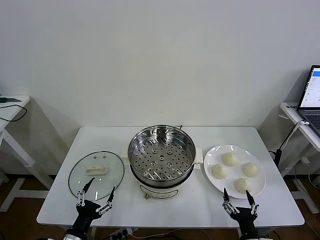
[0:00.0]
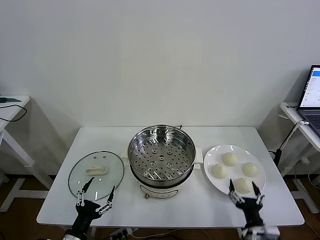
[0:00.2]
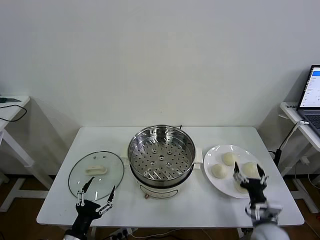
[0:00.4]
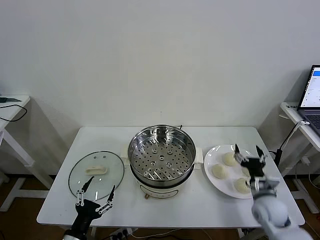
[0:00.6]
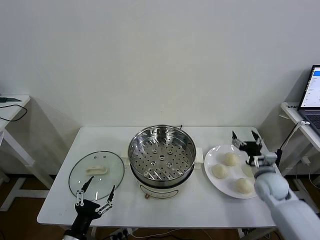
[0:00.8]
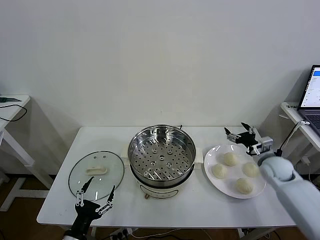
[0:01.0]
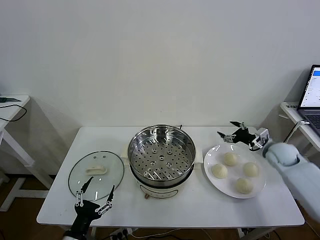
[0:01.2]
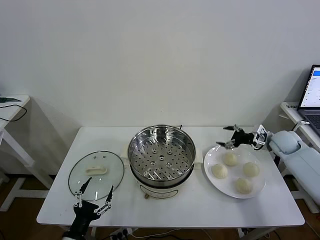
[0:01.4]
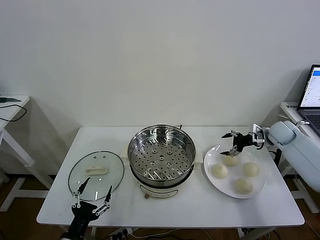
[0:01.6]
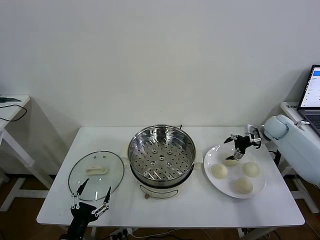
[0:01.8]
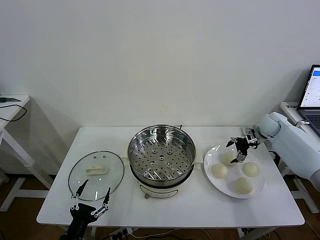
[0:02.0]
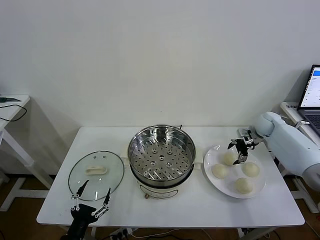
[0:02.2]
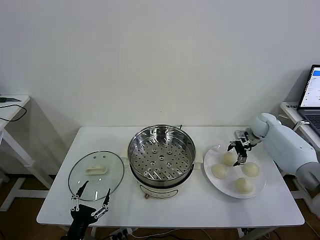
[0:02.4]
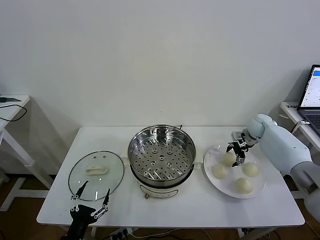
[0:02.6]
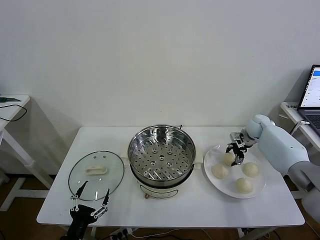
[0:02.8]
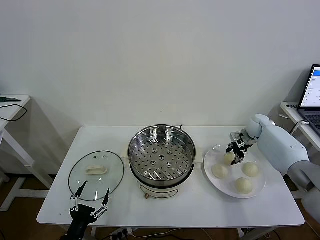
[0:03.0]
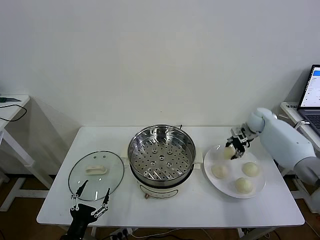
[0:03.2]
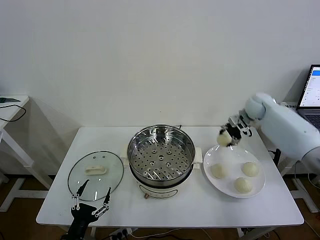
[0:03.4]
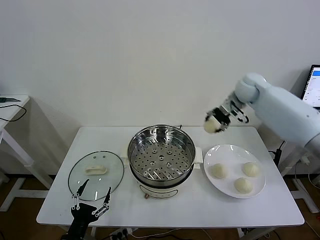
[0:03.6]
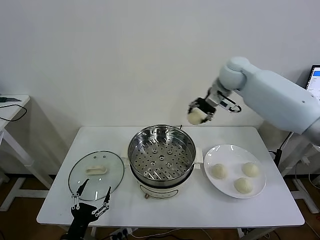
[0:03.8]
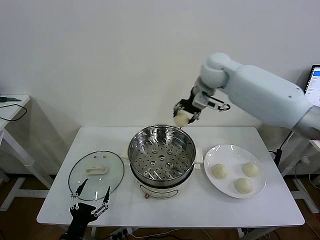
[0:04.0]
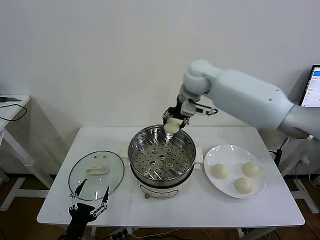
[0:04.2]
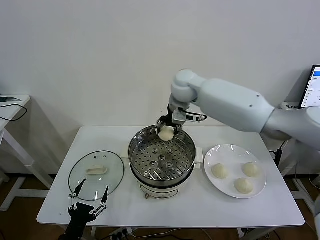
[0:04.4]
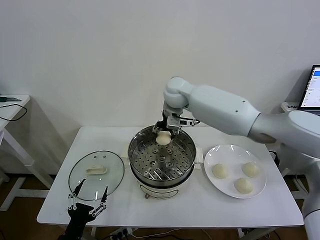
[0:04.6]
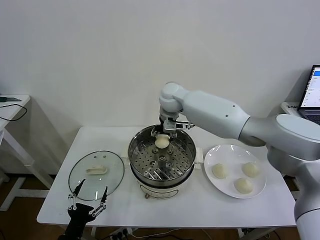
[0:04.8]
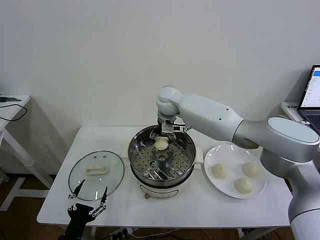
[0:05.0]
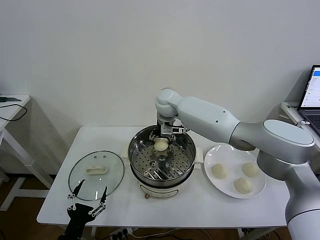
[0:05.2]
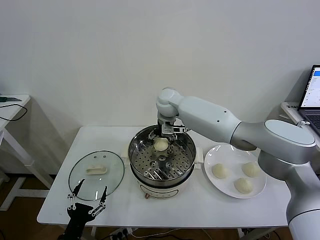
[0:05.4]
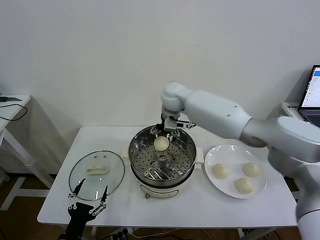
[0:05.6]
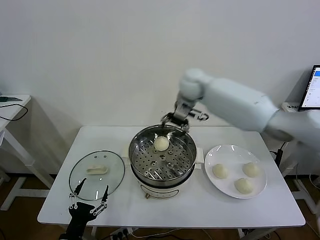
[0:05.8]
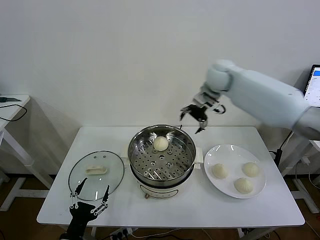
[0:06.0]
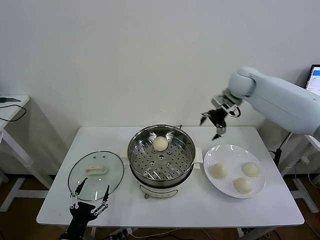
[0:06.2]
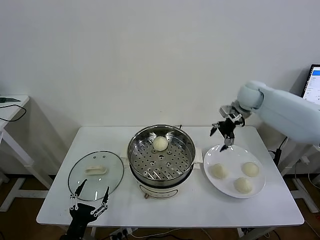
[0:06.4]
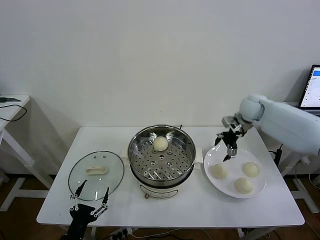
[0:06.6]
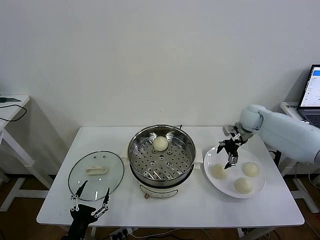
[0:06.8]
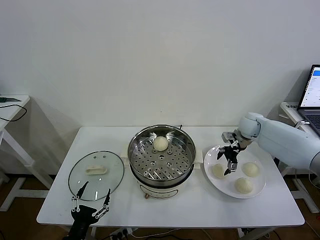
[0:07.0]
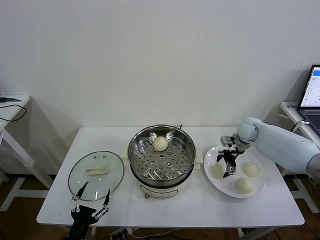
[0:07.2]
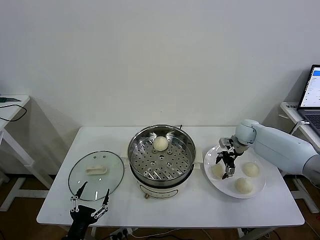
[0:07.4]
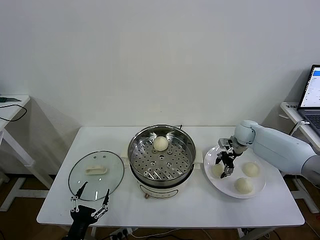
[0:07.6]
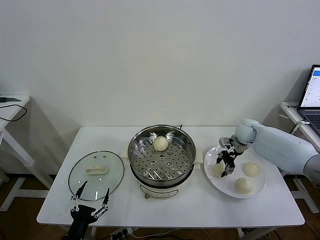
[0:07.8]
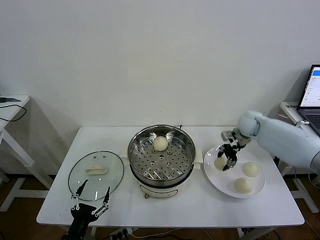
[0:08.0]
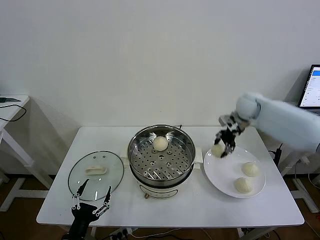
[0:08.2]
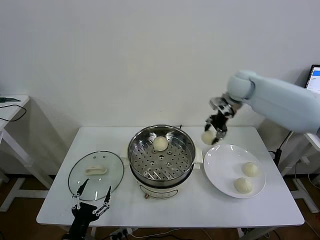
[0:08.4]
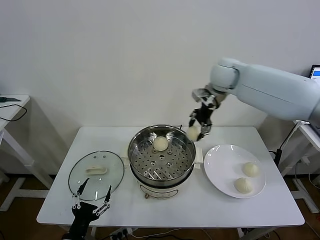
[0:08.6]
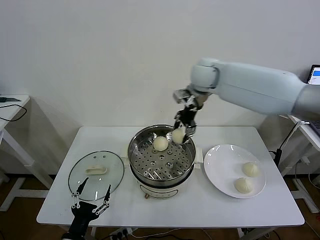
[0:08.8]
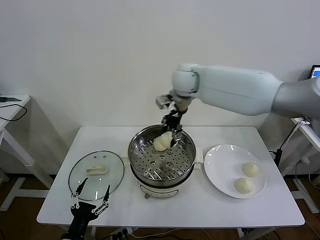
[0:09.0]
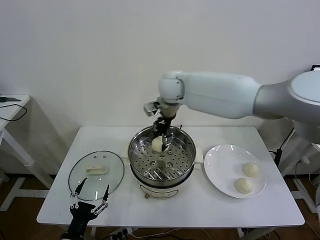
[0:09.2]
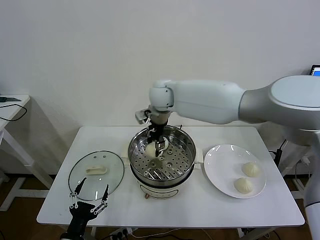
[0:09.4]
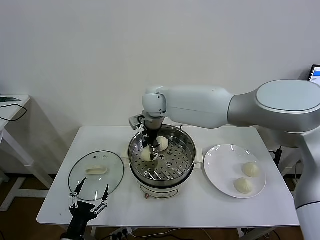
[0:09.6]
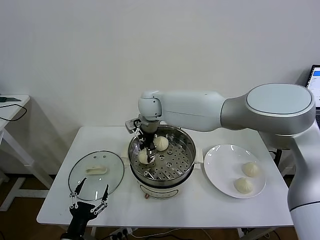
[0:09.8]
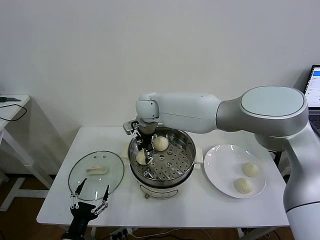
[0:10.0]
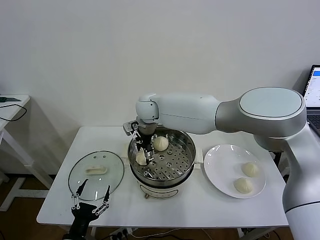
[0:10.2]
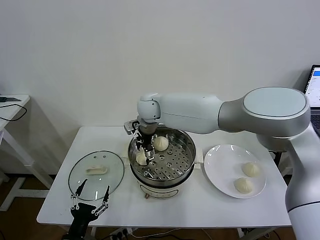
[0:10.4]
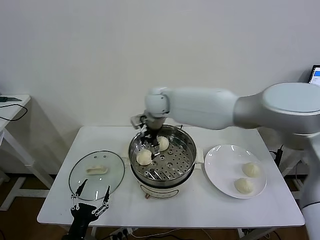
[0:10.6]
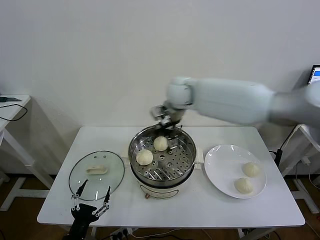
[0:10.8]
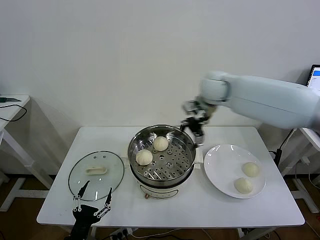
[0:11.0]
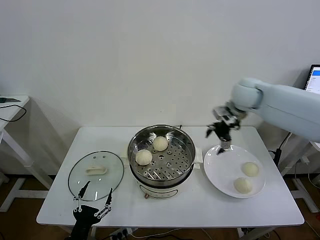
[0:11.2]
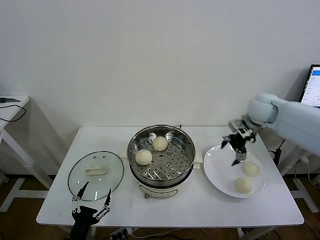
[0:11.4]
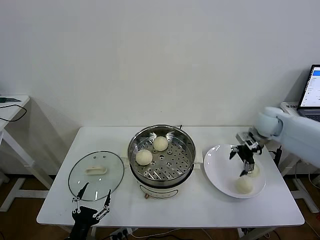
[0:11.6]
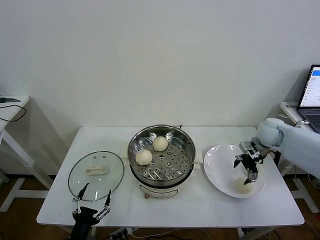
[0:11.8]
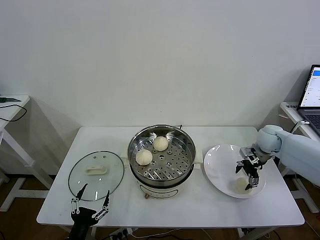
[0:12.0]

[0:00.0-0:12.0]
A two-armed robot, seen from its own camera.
Task of the whole recording: take steamed baozi put them in steamer then cover it.
Step, 0:00.0 to 0:02.8: Grasp the baozi in the plate with right gripper.
Step, 0:03.2 to 0:05.4: Place the baozi on the steamer with right gripper.
Step, 0:05.6 to 0:07.6: Grasp the baozi in the plate with right gripper.
Step, 0:07.8 to 0:10.2: Place the baozi on the steamer with right gripper.
0:01.6 to 0:03.0: The right gripper heads forward, covering approximately 5 cm, and closes its fingers.
0:03.0 to 0:04.4: The right gripper goes about 40 cm to the left and upward.
0:04.4 to 0:06.0: The right gripper is displaced to the right by some 15 cm, and opens up.
0:06.0 to 0:07.6: The right gripper is displaced downward and to the right by approximately 25 cm, and closes up.
0:07.6 to 0:09.0: The right gripper moves to the left and upward, approximately 35 cm.
0:09.0 to 0:10.4: The right gripper is displaced to the left and downward by approximately 10 cm, and opens its fingers.
0:10.4 to 0:12.0: The right gripper is displaced to the right by about 40 cm.

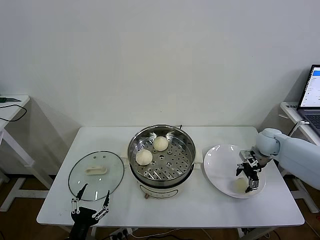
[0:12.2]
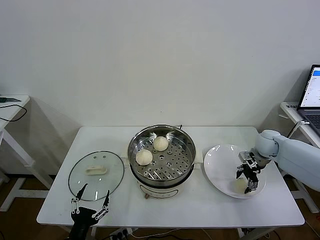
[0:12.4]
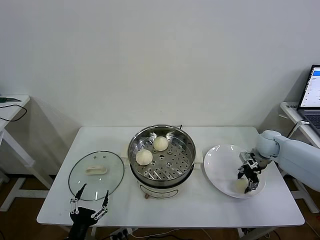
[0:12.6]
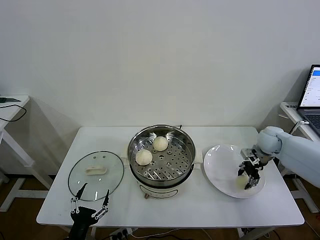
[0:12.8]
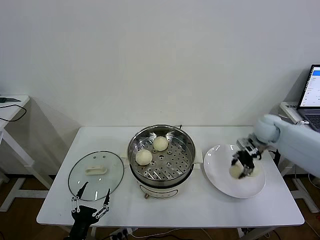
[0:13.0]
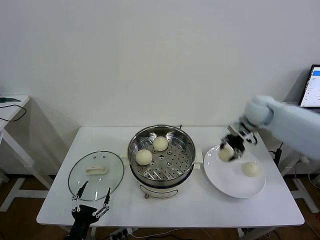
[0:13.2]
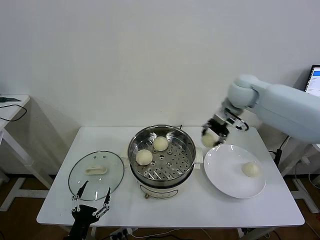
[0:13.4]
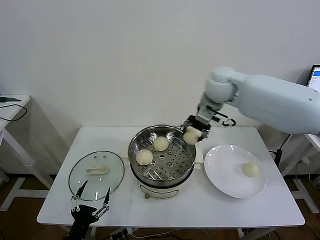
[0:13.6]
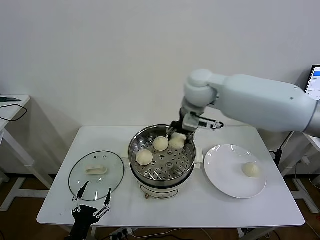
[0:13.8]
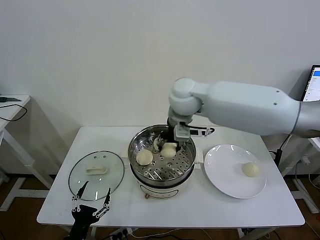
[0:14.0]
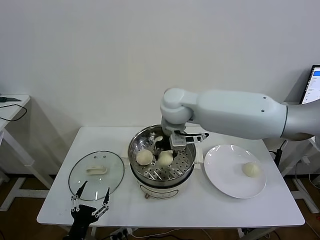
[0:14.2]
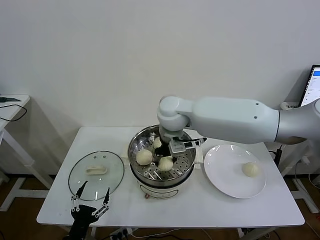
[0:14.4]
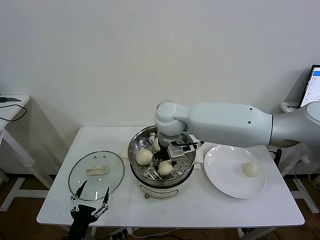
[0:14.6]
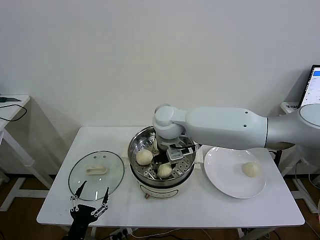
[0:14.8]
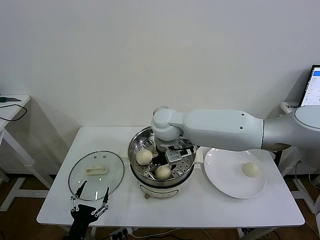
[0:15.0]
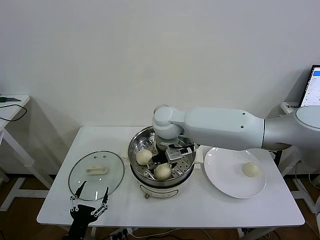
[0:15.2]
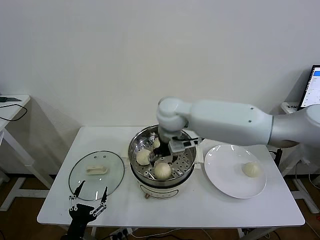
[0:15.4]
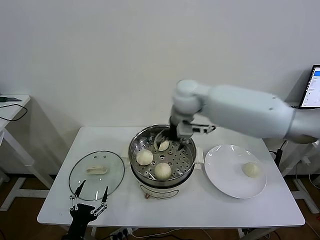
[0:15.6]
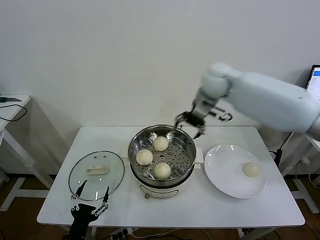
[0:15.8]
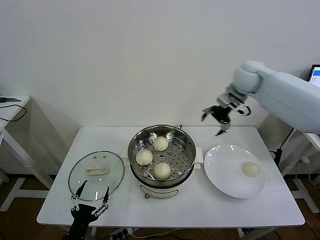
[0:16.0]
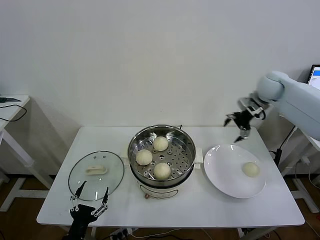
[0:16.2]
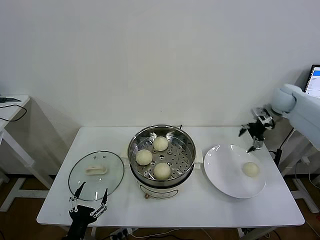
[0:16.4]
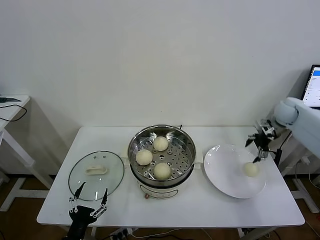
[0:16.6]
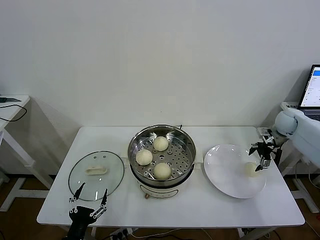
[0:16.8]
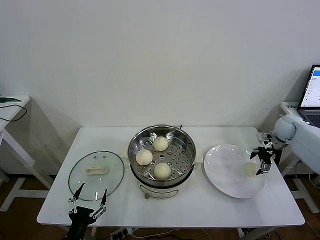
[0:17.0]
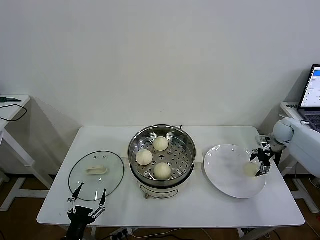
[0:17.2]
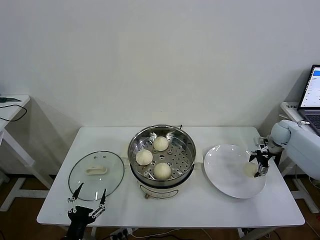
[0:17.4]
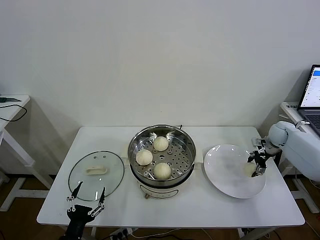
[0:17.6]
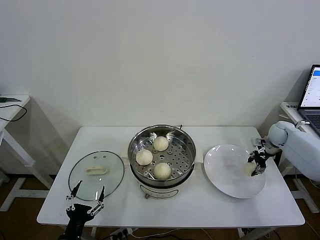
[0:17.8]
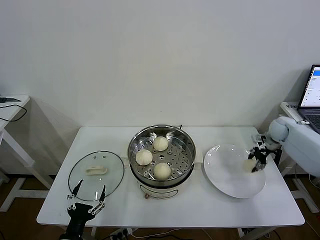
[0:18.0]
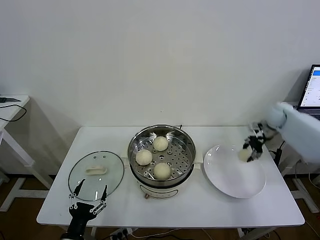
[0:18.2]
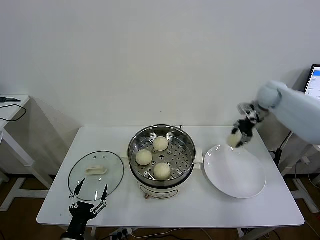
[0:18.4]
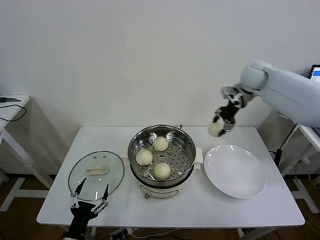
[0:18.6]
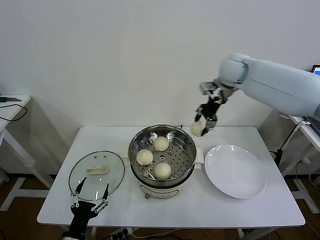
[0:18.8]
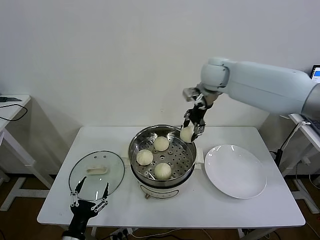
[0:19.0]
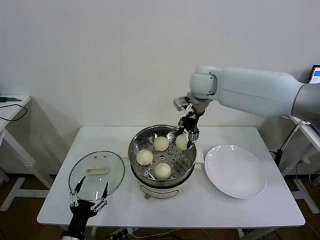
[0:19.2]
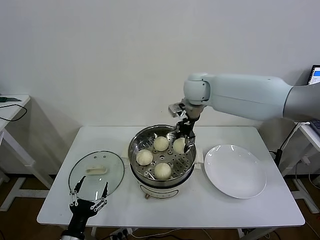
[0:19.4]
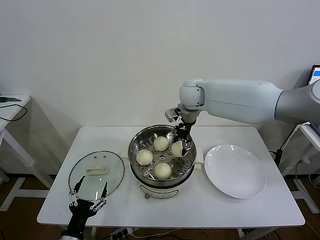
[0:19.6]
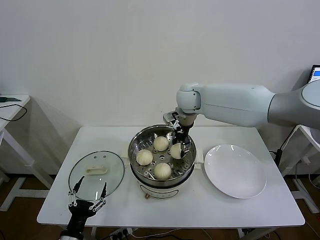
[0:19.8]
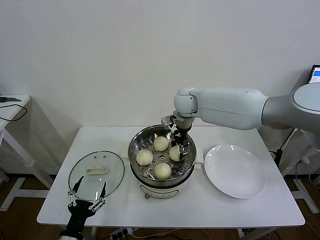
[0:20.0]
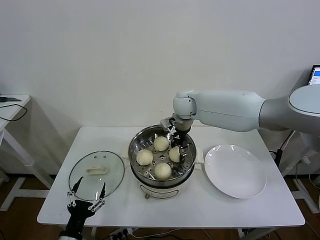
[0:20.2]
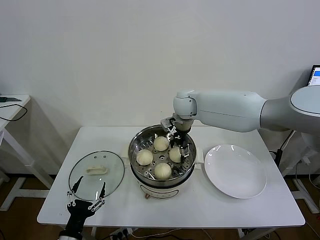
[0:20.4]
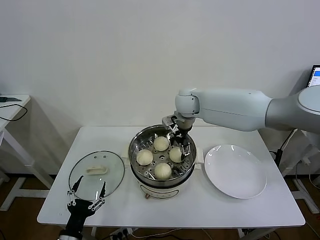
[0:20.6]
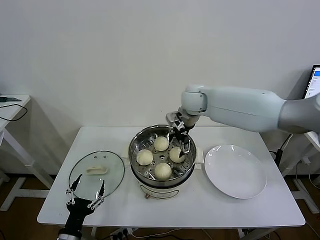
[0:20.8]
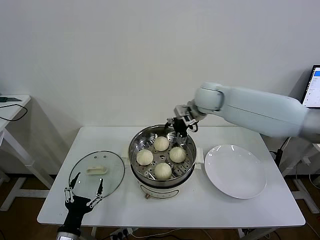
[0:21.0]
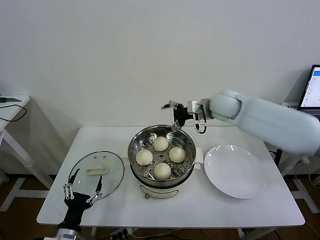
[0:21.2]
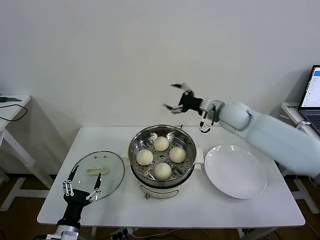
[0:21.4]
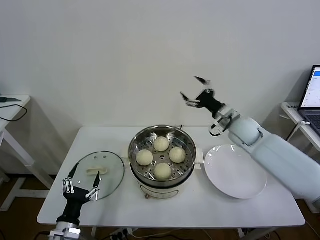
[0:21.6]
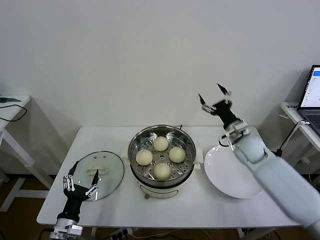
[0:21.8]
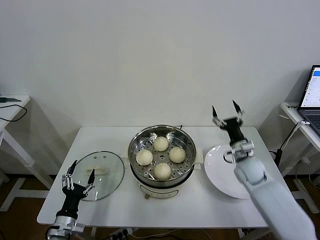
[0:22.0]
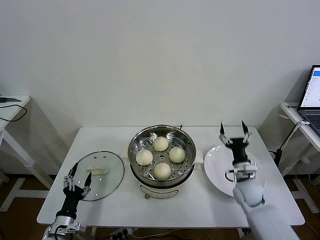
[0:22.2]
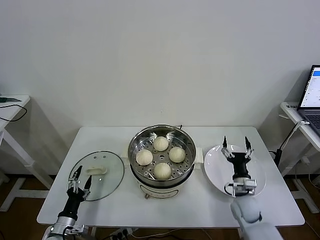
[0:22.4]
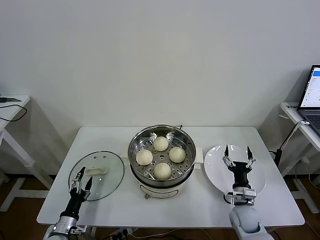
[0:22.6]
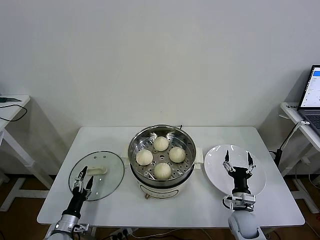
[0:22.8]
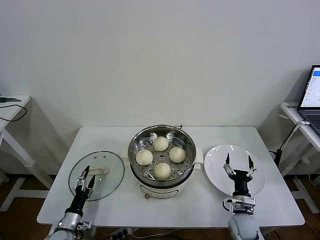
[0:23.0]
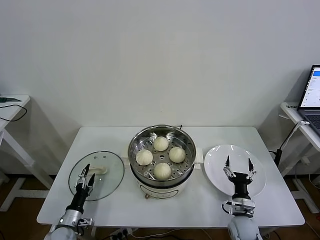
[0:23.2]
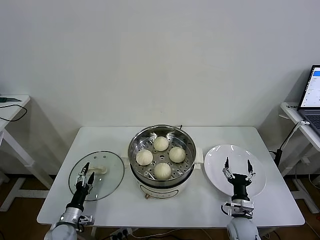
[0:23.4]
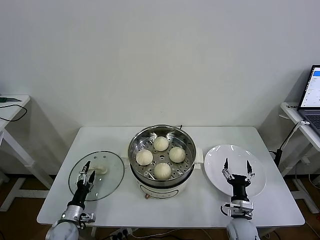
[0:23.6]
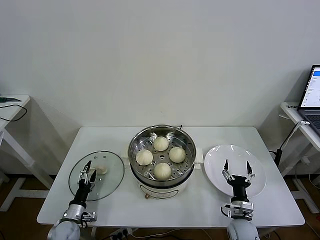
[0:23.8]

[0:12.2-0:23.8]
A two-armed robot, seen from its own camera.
Task of the whole recording: take steamed baozi put them in steamer then cover it.
Step, 0:12.8 to 0:15.0: Place the baozi on the steamer with right gripper.
Step, 0:15.4 to 0:17.8: Grasp the baozi in the plate with right gripper.
Step, 0:18.0 to 0:20.6: Place the baozi on the steamer with right gripper.
0:12.2 to 0:13.6: The right gripper goes some 35 cm to the left and upward, and closes its fingers.
0:13.6 to 0:15.0: The right gripper moves to the left, downward and backward, some 20 cm, and opens.
0:15.0 to 0:16.6: The right gripper heads to the right, covering some 50 cm.
0:16.6 to 0:18.0: The right gripper moves downward, roughly 5 cm, and closes.
0:18.0 to 0:19.4: The right gripper moves to the left and upward, approximately 40 cm.
0:19.4 to 0:21.0: The right gripper ends up some 5 cm from where it was, and opens up.
0:21.0 to 0:22.4: The left gripper is displaced downward, forward and to the left by some 15 cm. Meanwhile the right gripper moves downward, backward and to the right, some 40 cm.
0:22.4 to 0:23.8: The left gripper travels forward by roughly 5 cm, while the right gripper goes approximately 10 cm backward and downward.
